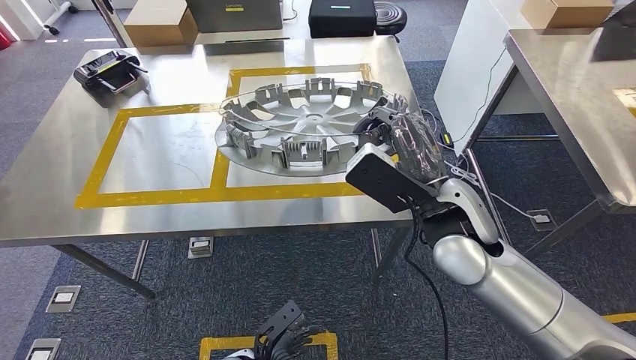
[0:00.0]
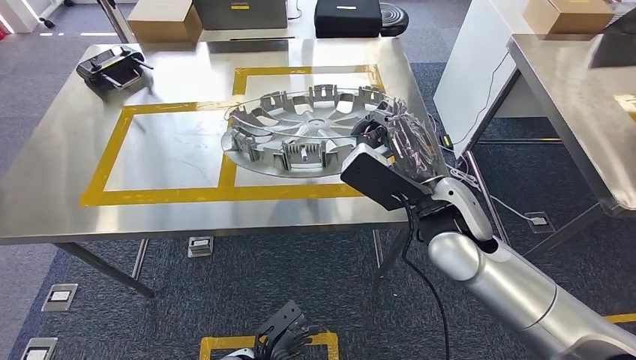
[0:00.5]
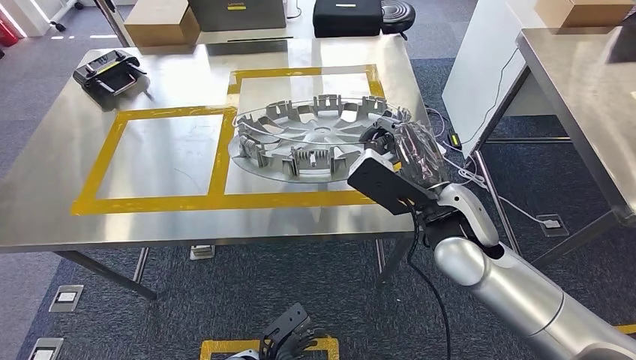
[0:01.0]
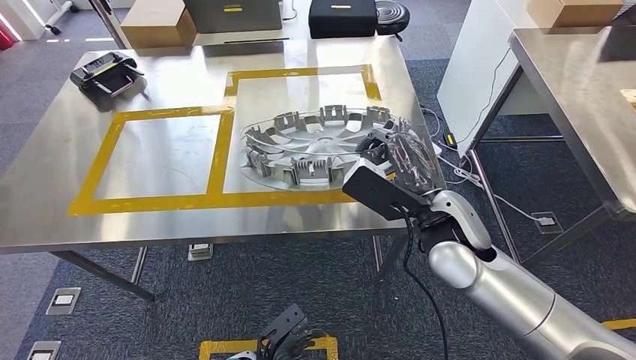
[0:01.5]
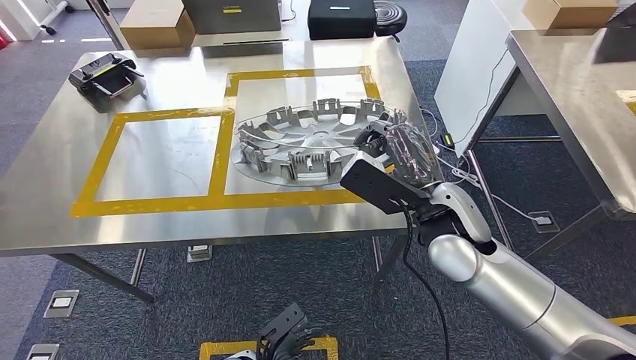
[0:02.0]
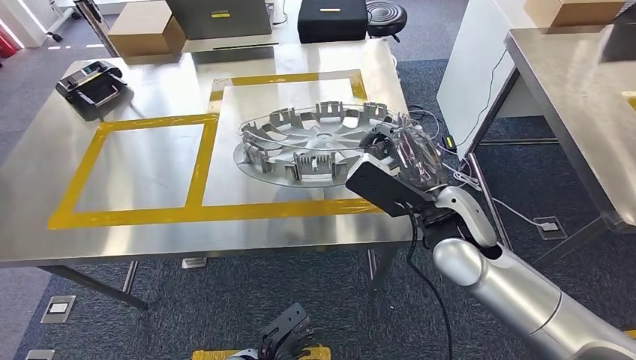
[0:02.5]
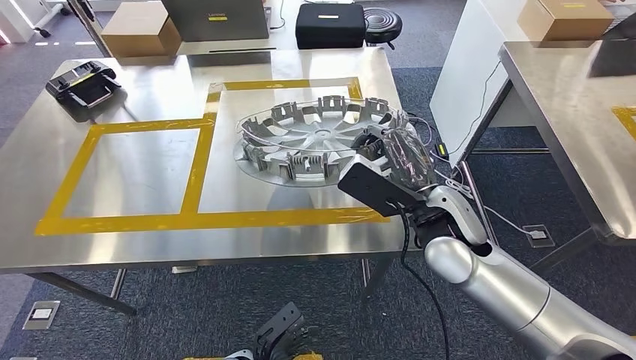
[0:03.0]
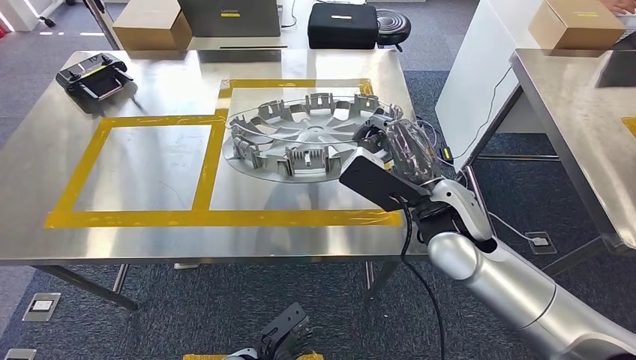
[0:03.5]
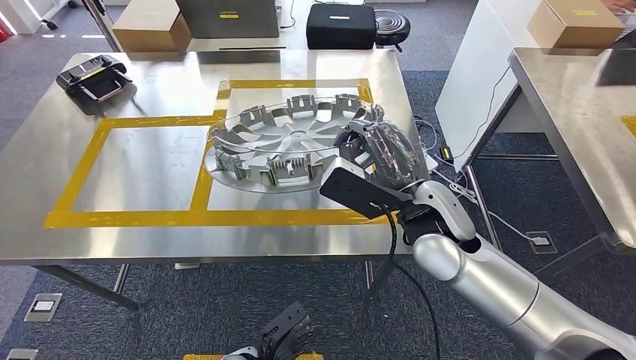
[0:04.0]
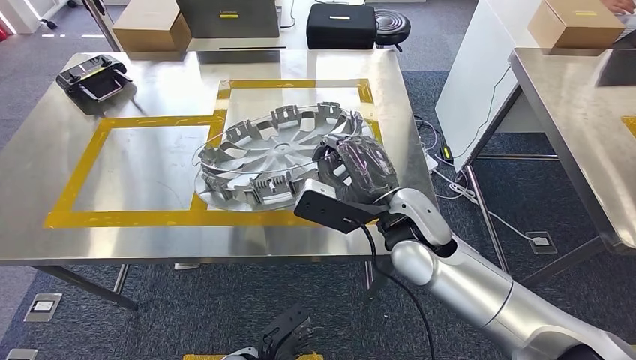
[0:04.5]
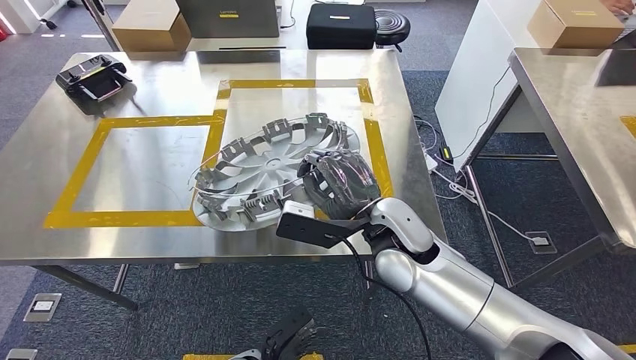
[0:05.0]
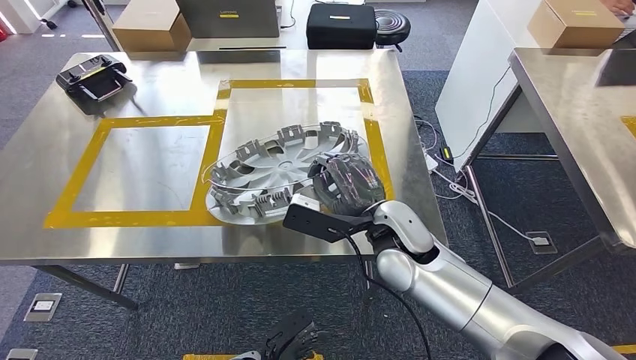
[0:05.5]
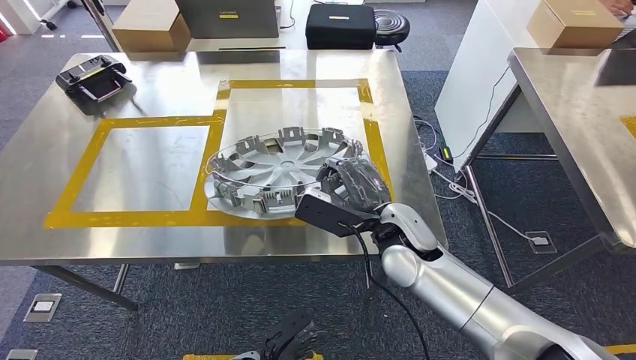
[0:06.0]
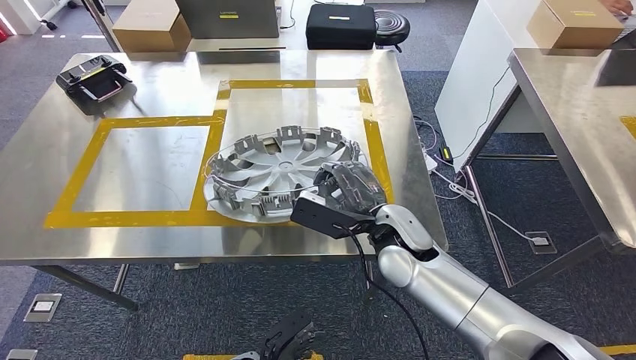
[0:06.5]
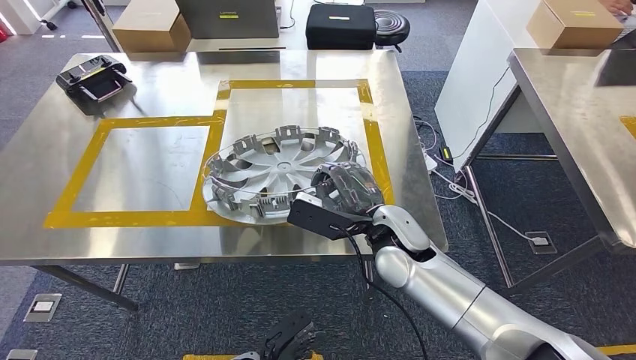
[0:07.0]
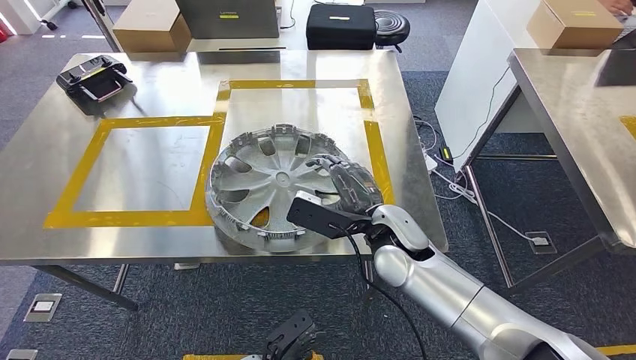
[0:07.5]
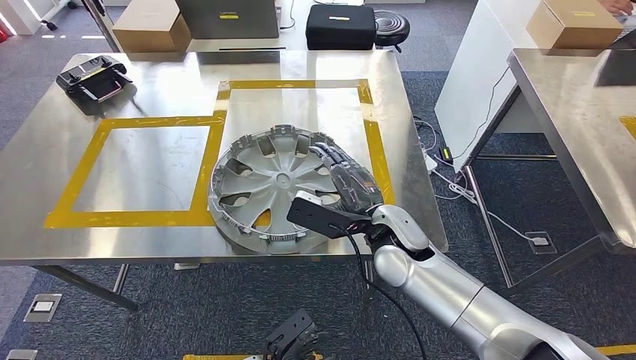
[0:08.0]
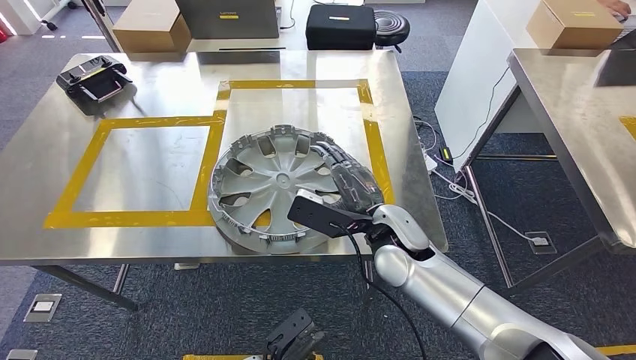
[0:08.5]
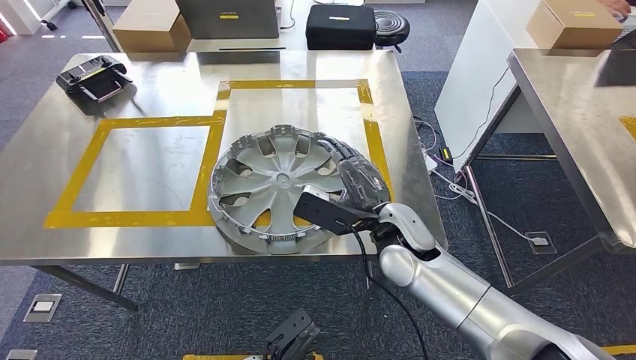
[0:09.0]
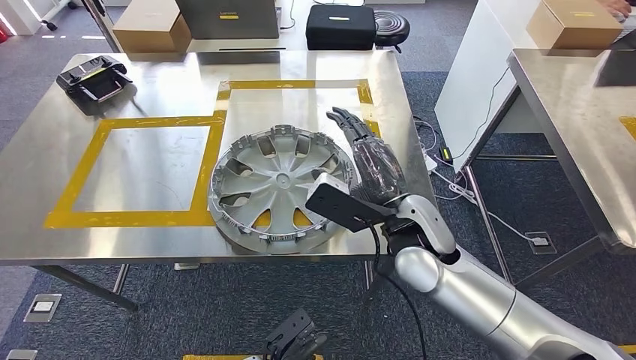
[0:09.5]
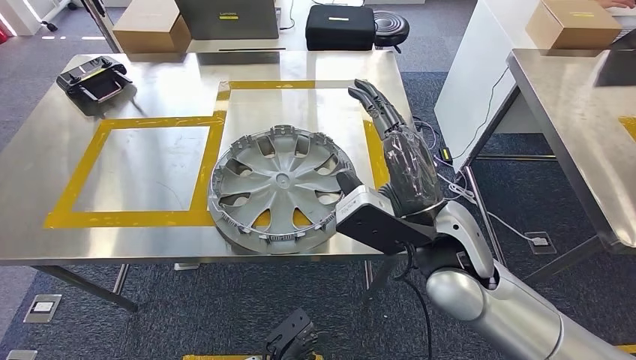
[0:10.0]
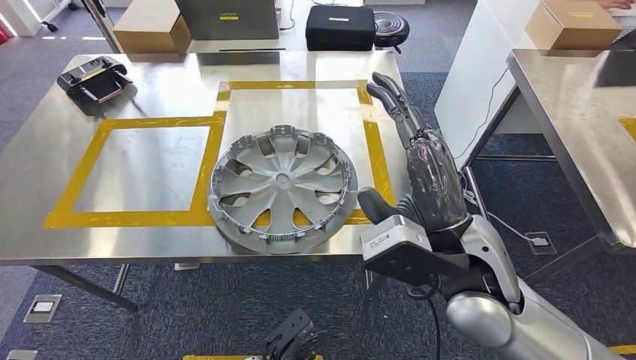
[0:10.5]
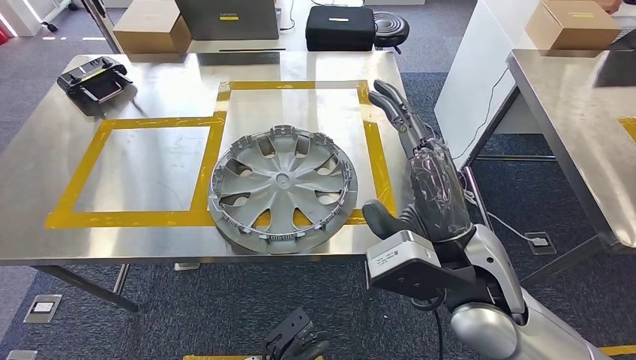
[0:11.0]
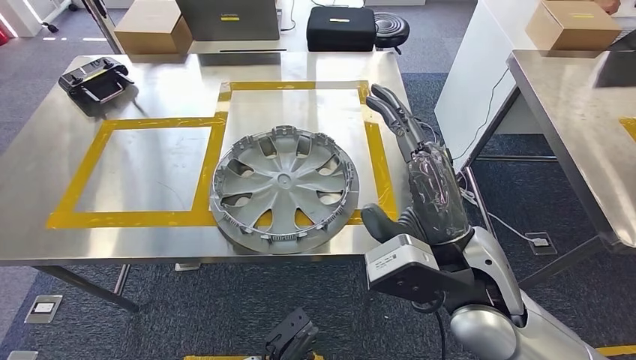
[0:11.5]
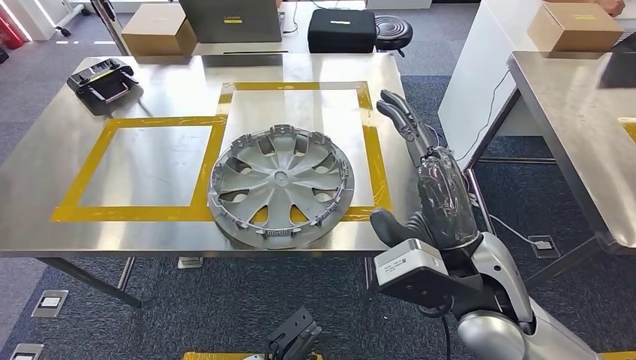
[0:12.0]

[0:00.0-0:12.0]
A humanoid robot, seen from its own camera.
Step, 0:00.0 to 0:09.5: Insert the large material into the corresponding slot on the workbench.
0:04.0 to 0:06.0: The right hand goes about 5 cm downward.
0:06.0 to 0:08.0: Neither hand changes place.
0:08.0 to 0:10.0: The right hand is displaced upward by approximately 10 cm.

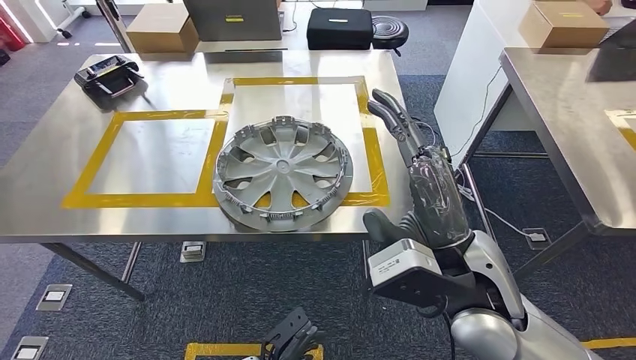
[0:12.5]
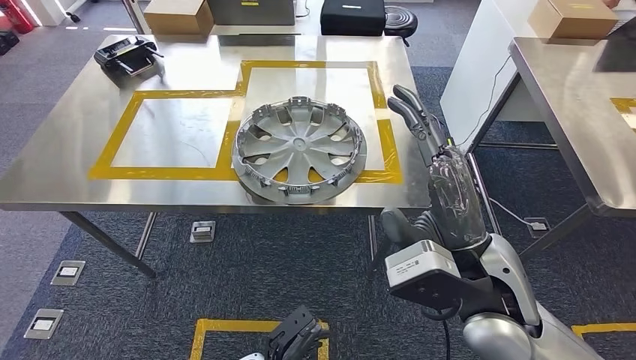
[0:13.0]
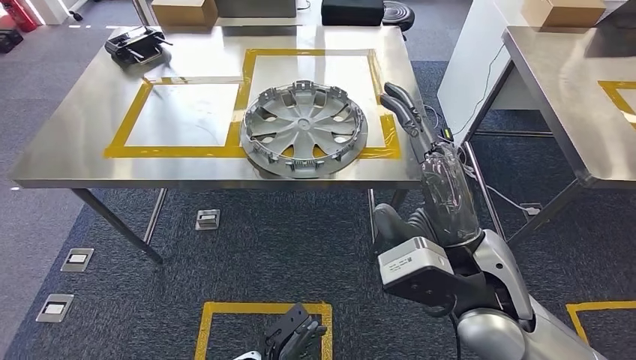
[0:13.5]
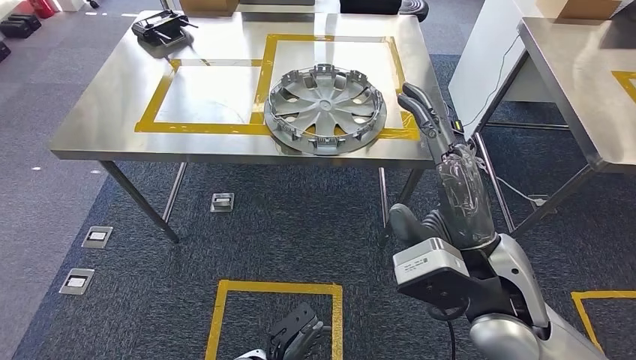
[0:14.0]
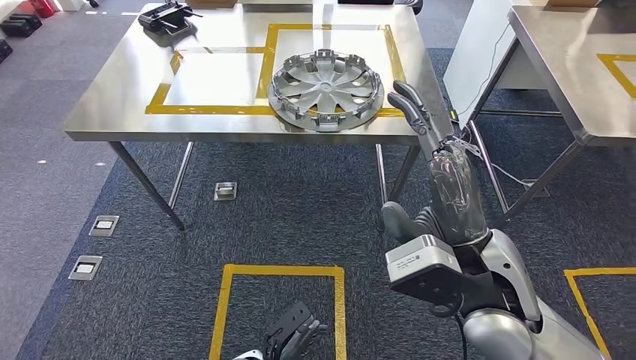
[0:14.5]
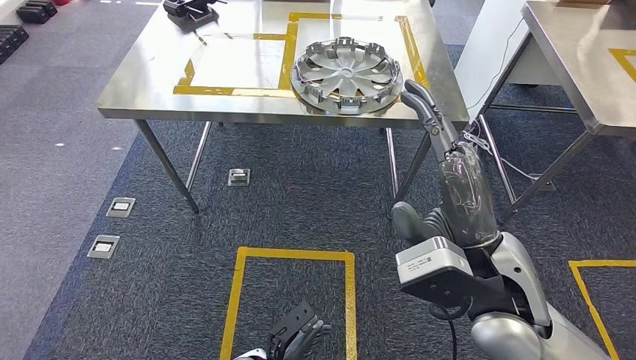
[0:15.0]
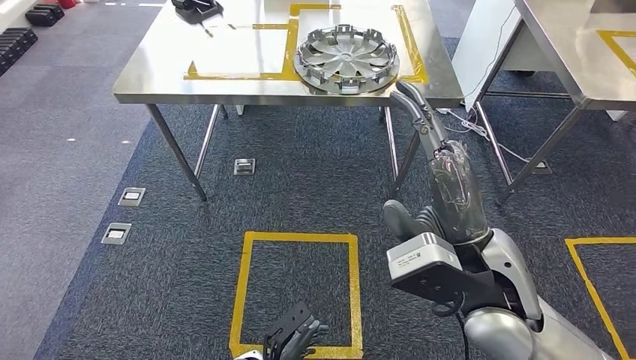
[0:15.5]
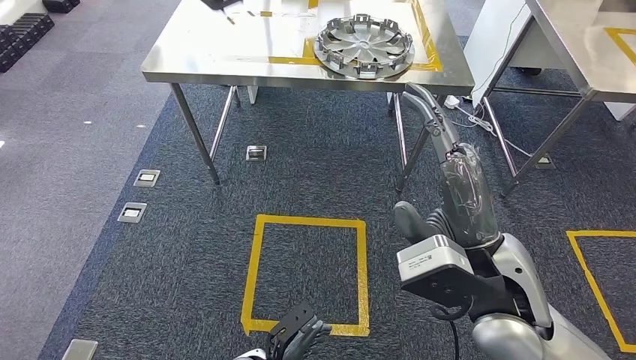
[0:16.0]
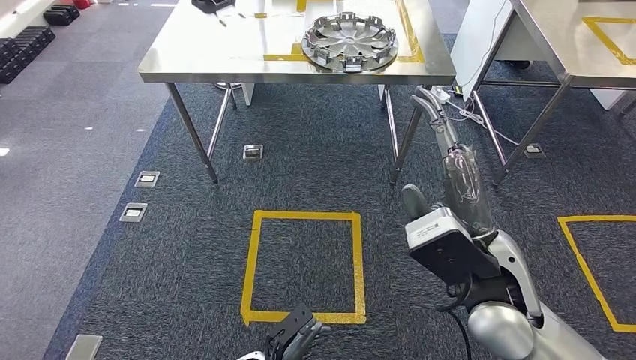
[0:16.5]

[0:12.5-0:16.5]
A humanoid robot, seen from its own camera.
Step, 0:12.5 to 0:16.5: Move to the initial position of the shelf.
